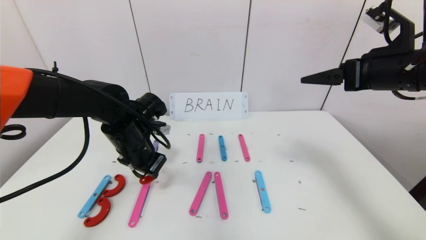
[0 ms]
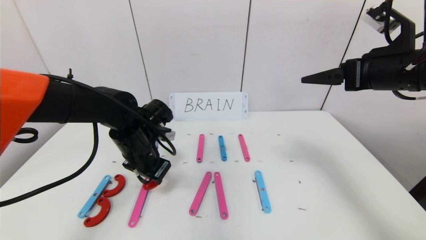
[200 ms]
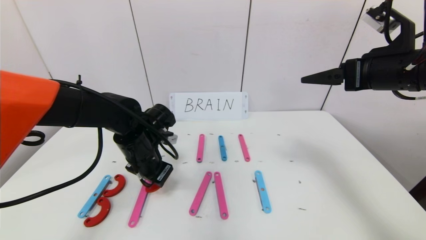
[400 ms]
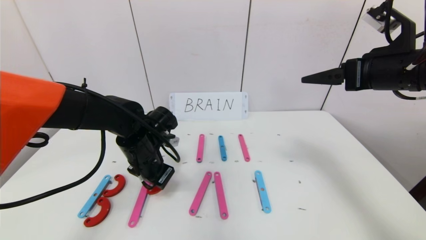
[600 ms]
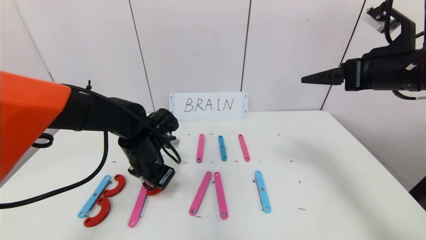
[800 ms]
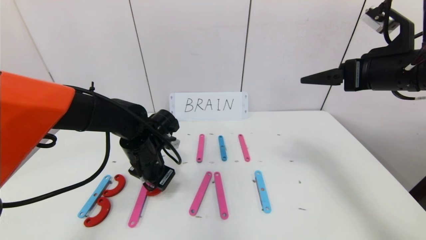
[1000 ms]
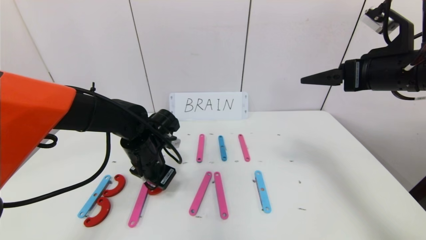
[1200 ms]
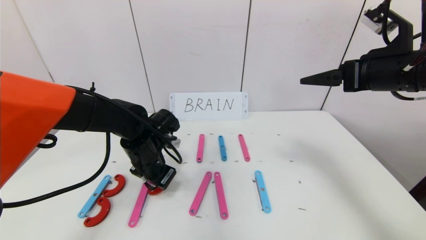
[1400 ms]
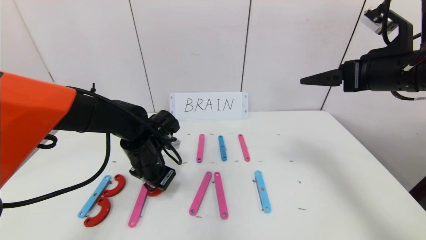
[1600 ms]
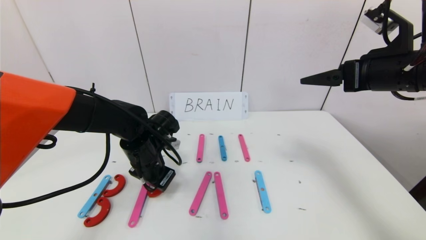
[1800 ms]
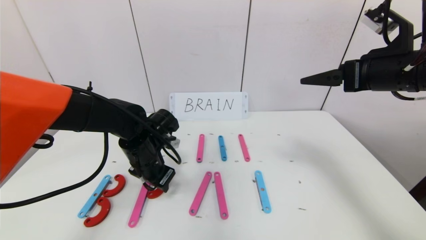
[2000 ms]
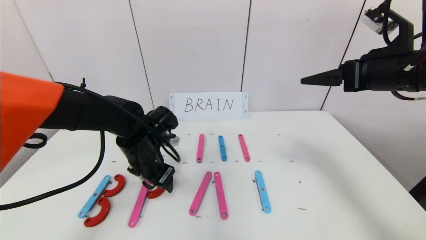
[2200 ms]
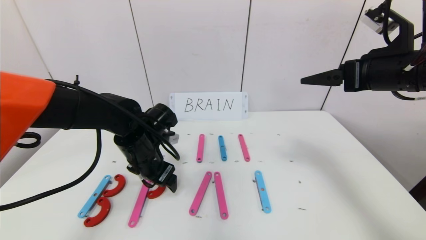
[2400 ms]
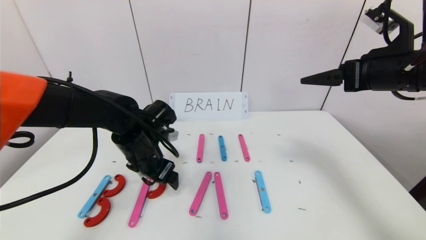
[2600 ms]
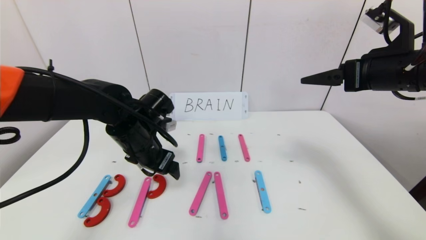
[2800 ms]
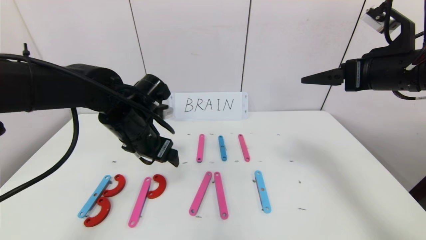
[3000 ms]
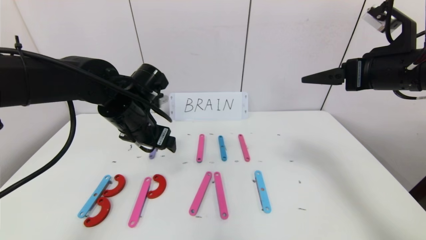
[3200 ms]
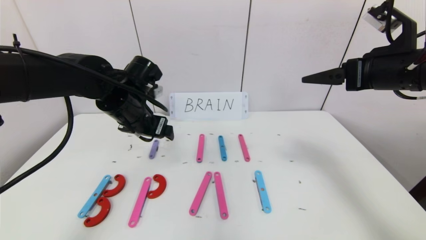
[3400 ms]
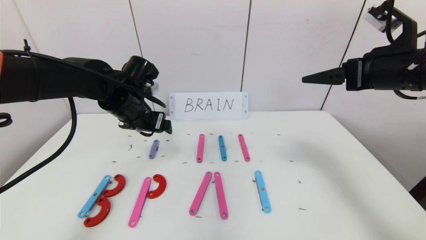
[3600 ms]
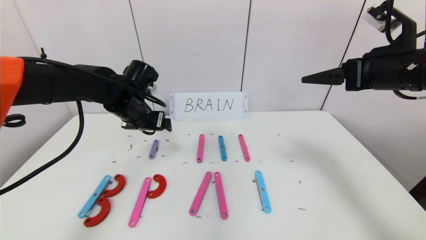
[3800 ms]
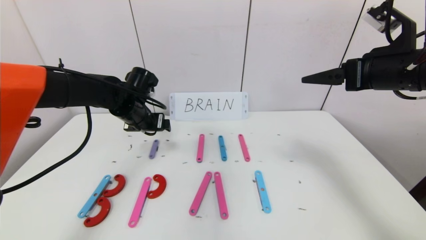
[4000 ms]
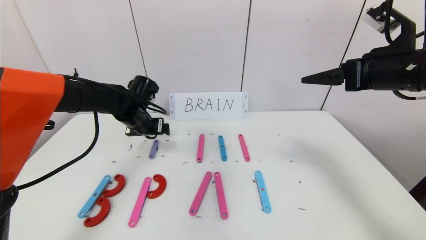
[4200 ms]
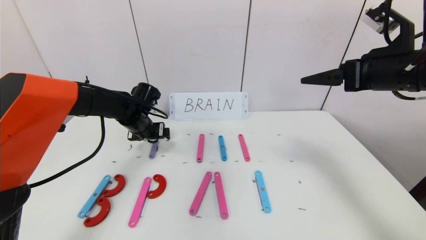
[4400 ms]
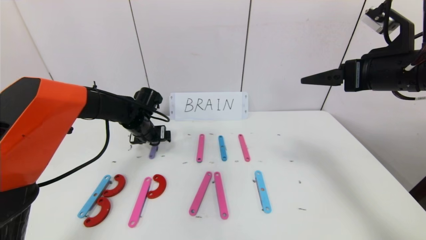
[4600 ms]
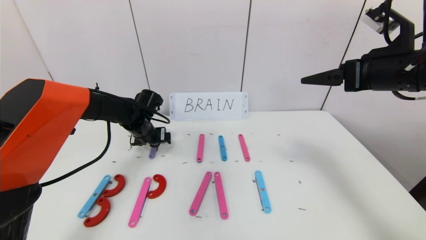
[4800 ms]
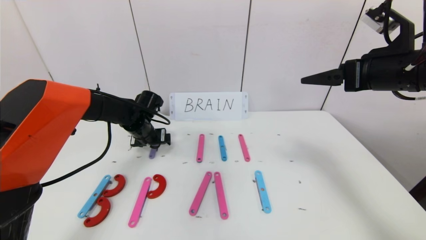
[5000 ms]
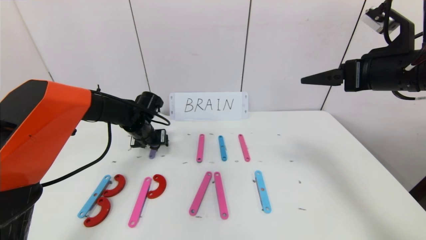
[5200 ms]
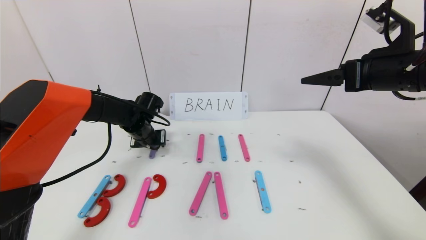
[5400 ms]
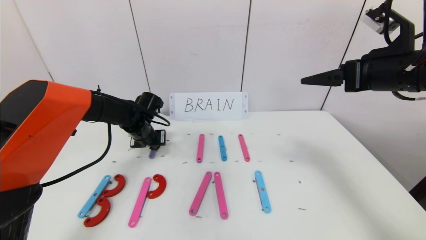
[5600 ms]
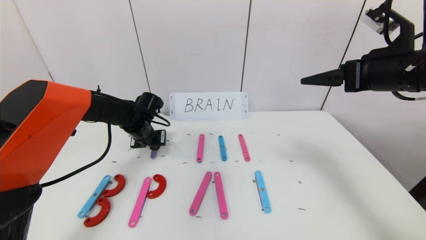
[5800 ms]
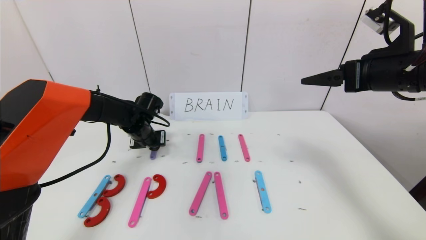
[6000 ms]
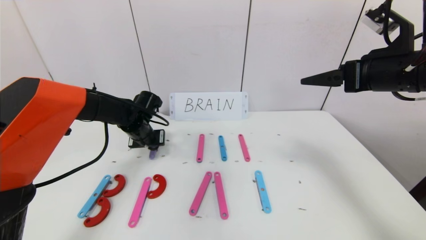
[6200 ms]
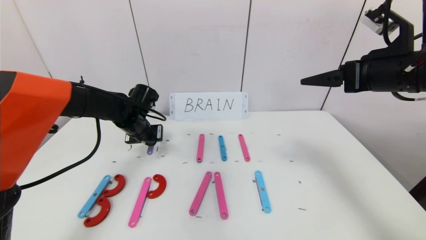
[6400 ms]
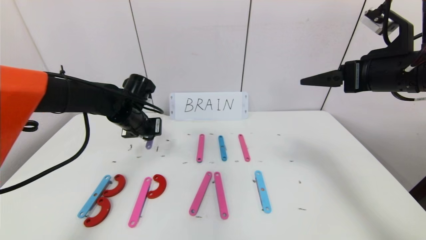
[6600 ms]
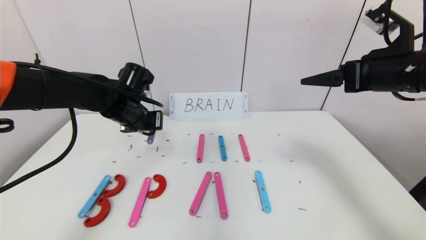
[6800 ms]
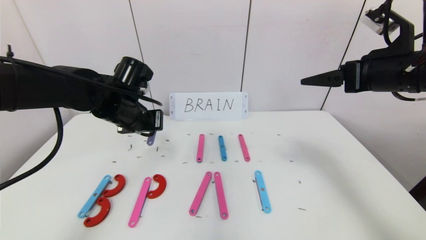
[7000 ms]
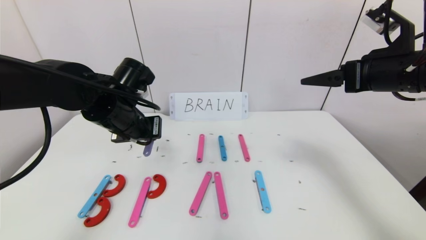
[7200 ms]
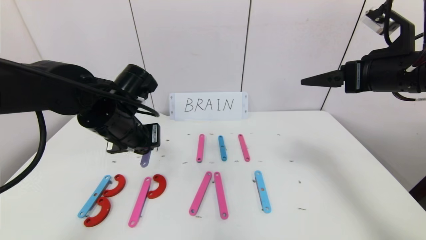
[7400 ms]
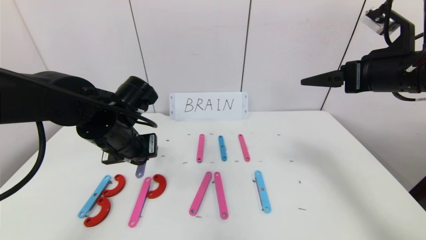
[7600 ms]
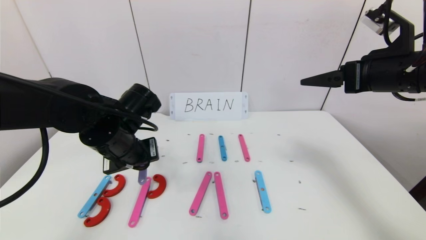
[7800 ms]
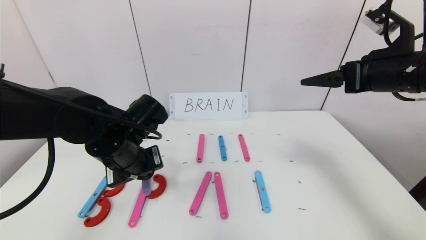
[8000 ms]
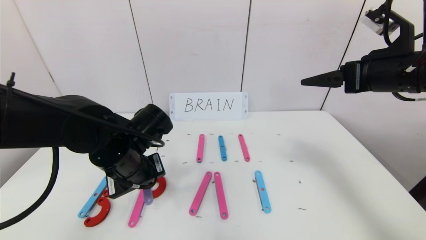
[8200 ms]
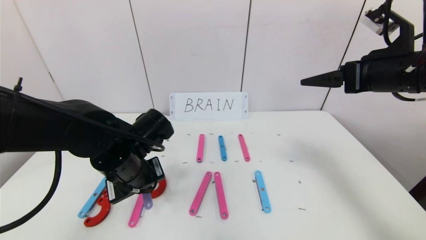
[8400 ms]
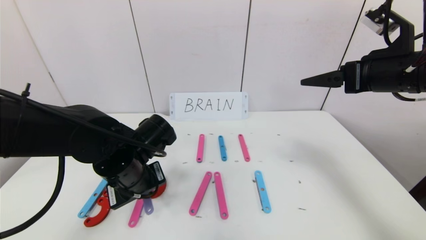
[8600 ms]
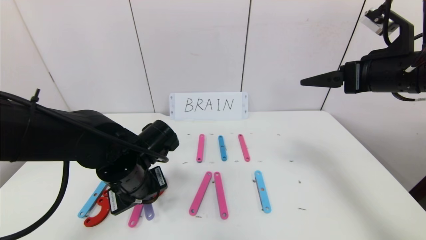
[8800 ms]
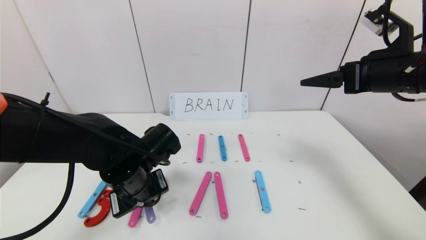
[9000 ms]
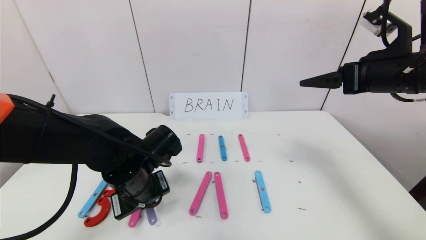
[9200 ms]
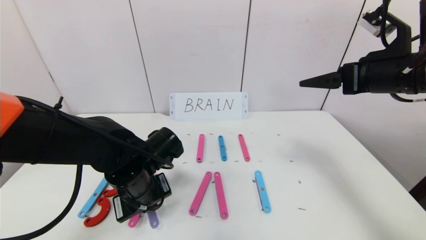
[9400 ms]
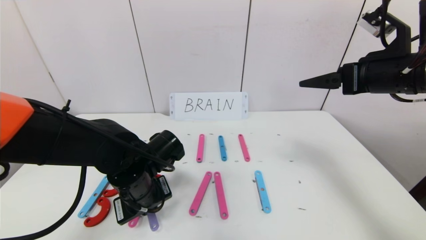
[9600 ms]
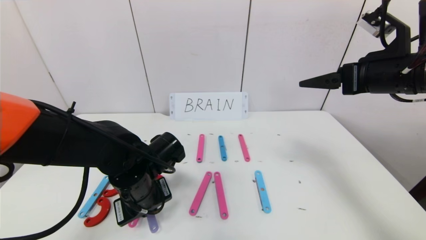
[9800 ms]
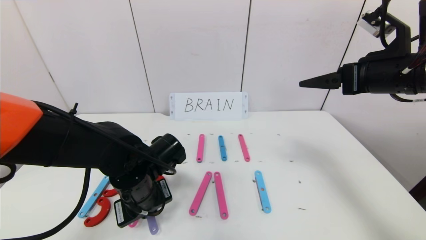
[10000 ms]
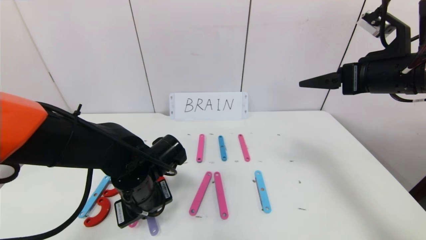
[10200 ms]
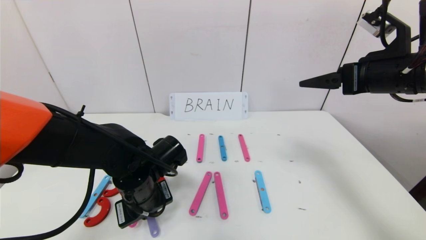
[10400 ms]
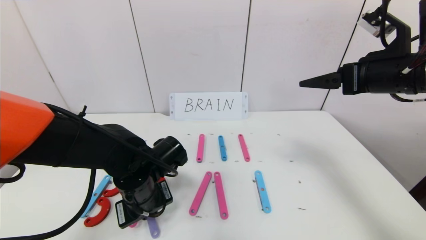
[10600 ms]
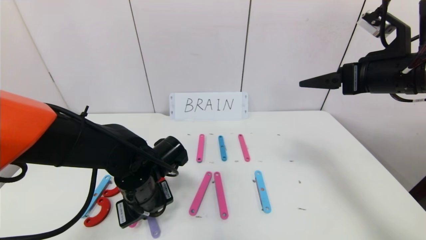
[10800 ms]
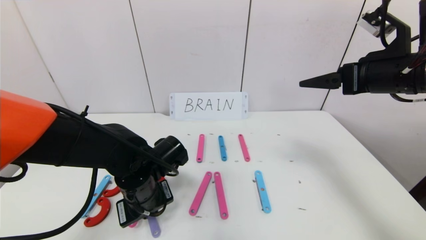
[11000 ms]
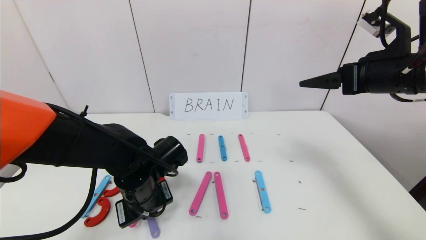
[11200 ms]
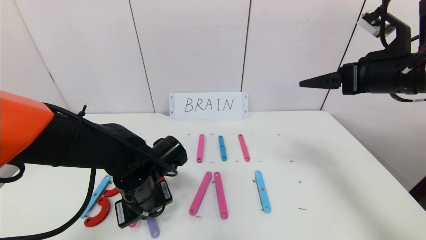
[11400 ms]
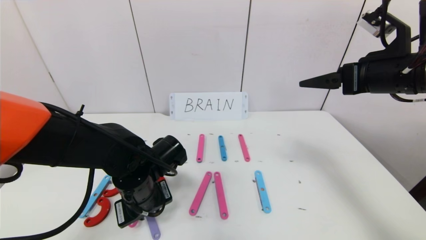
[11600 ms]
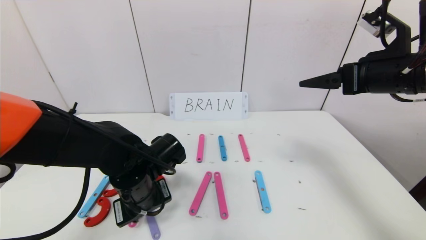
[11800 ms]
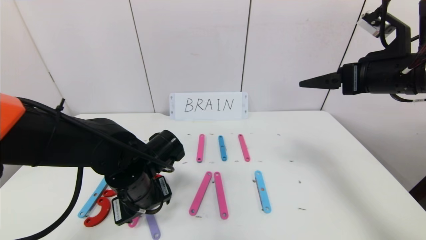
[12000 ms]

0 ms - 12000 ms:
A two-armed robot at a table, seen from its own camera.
Task of the whole recording: rearrange the word baai as brain.
Step, 0 ms - 11600 ms: Place the character R between first character B and third character A.
0 ms - 1600 ms: There are only small adjustments of the grippers.
1600 ms - 3000 ms: The left gripper shifts about 10 cm upward, and opens.
3000 ms - 4400 ms: The left gripper heads forward and downward, covering about 15 cm.
4400 ms - 6000 ms: The left gripper closes its fingers.
6000 ms - 7600 ms: The left gripper shifts approximately 15 cm backward and upward.
7600 ms - 9000 ms: The left gripper travels downward by roughly 5 cm.
9000 ms - 10400 ms: There are only small adjustments of the grippers.
10400 ms - 12000 ms: The left gripper opens up.

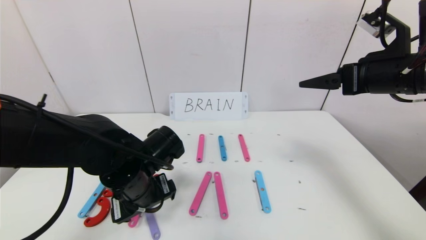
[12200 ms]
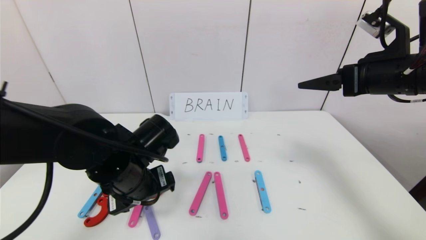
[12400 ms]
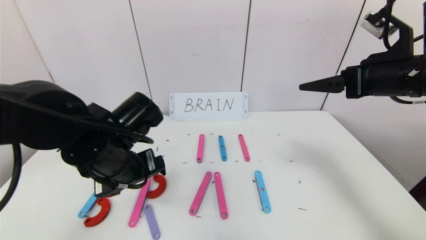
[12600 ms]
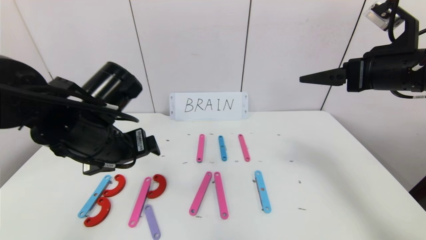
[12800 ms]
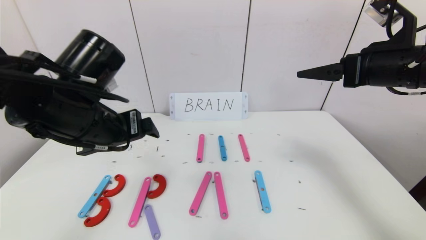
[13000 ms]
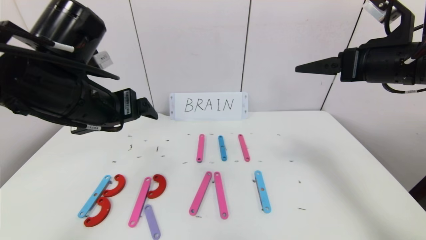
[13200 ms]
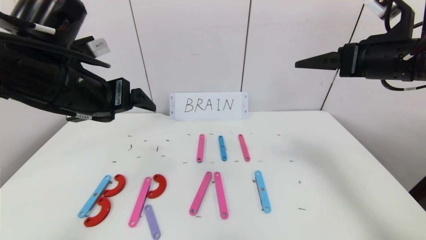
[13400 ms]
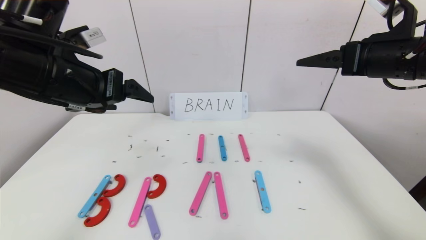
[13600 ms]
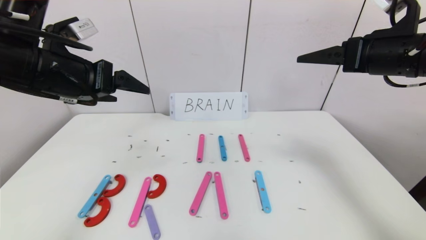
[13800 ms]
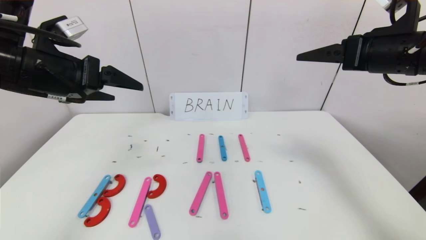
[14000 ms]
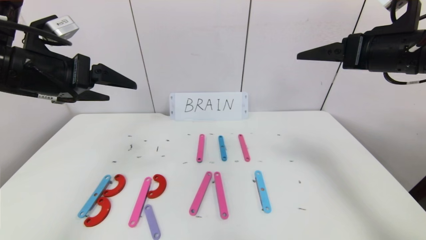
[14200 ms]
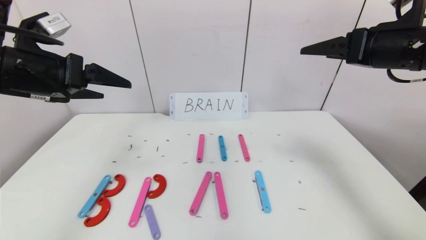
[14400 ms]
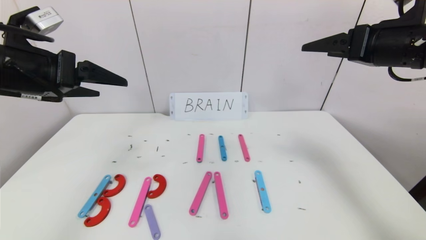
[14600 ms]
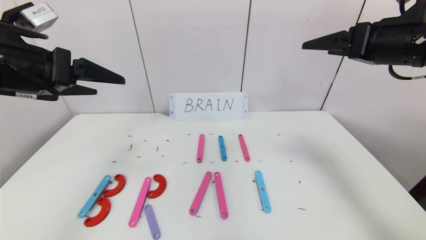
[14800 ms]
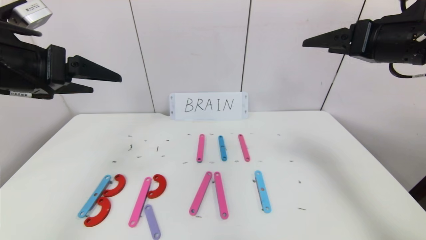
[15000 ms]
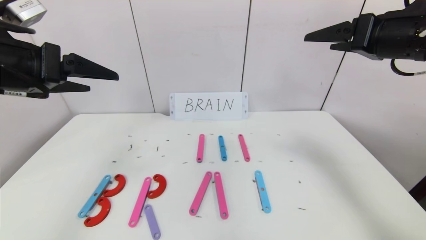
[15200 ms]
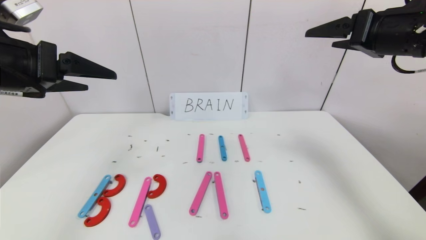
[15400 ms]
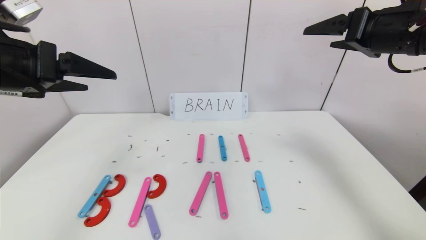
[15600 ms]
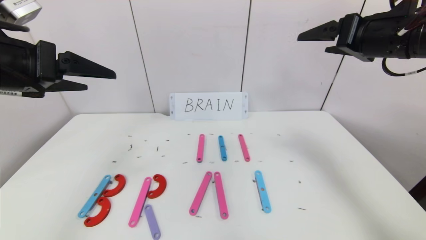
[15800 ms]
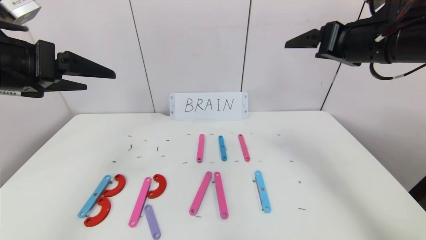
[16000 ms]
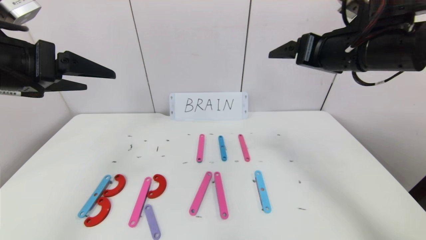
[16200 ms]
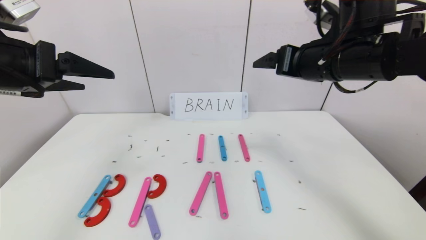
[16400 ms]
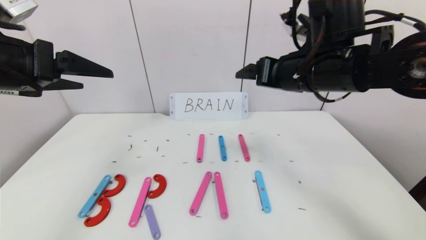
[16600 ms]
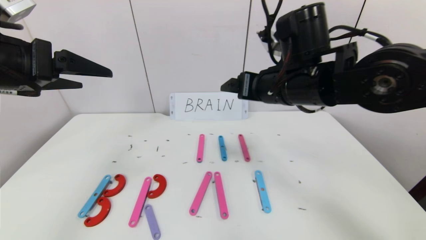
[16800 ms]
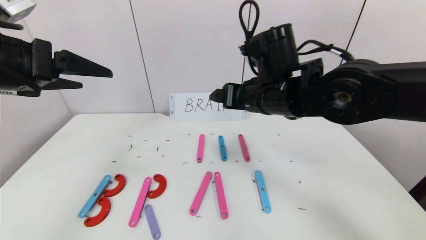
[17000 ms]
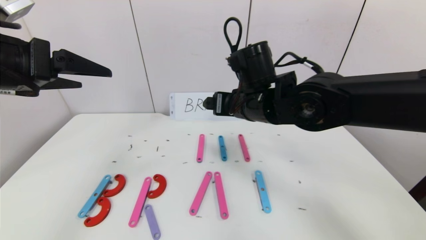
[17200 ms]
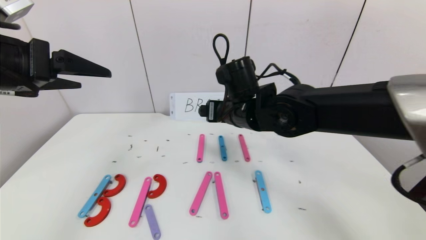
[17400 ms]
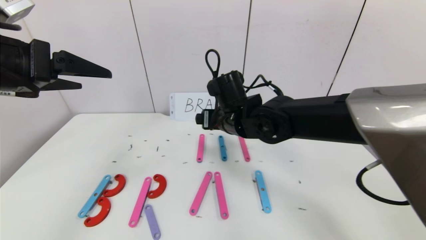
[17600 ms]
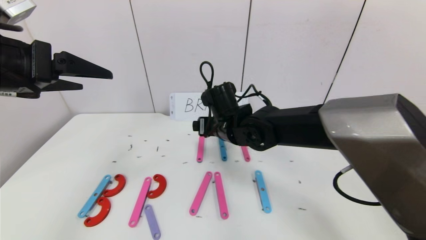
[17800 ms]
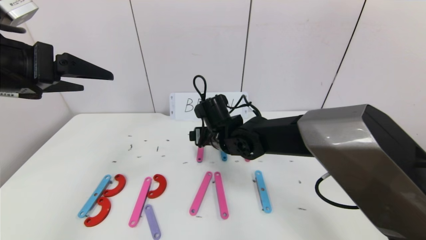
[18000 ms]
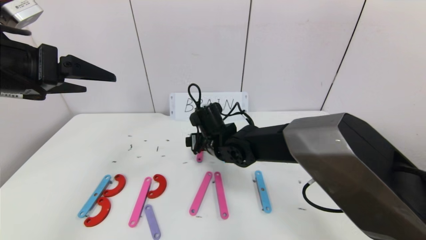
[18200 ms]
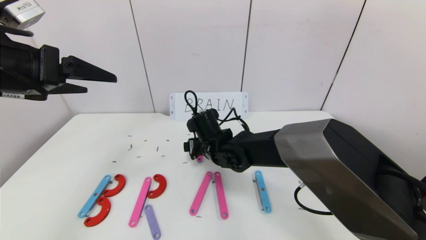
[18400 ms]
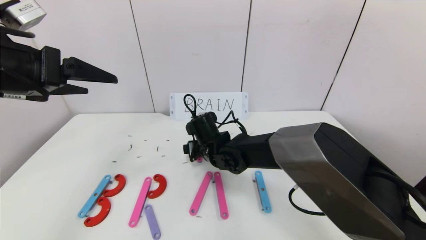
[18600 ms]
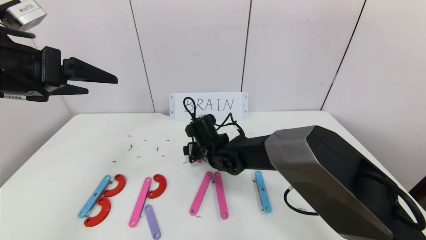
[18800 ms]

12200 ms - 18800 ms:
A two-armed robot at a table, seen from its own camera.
Task of the whole recording: rearrange the word baai as brain.
12200 ms - 13800 ms: The left gripper shifts some 20 cm upward and to the left.
13800 ms - 15400 ms: The left gripper ends up about 5 cm from where it was.
15400 ms - 17200 ms: The right gripper heads to the left and downward, covering roughly 25 cm.
17200 ms - 18800 ms: The right gripper shifts about 20 cm downward and to the left.
